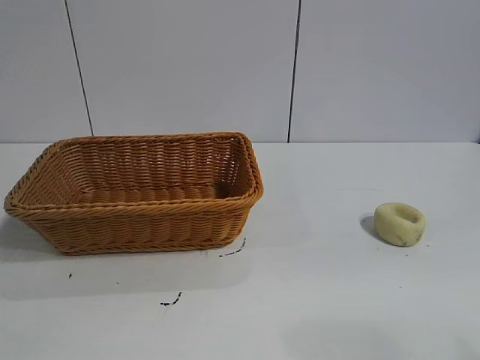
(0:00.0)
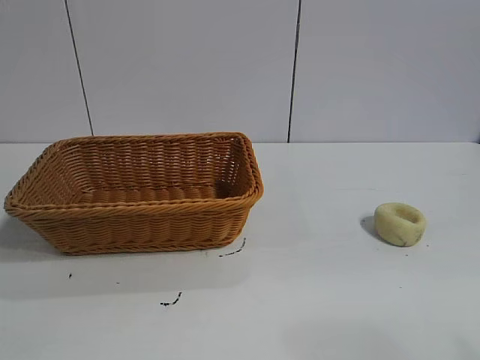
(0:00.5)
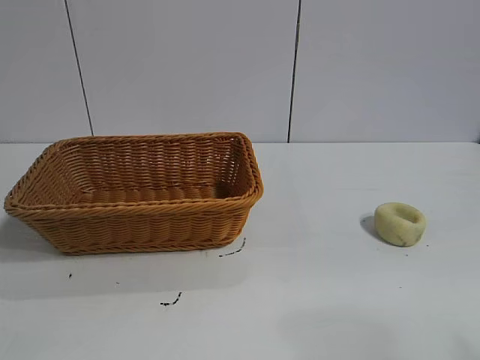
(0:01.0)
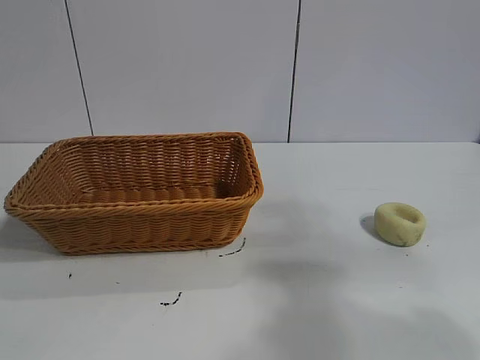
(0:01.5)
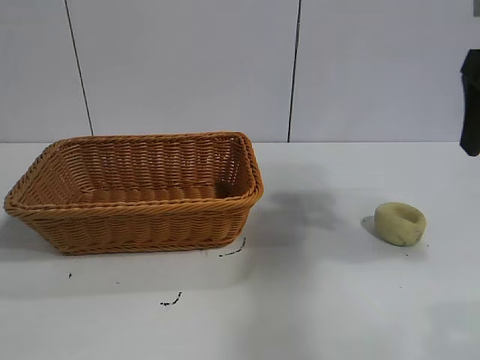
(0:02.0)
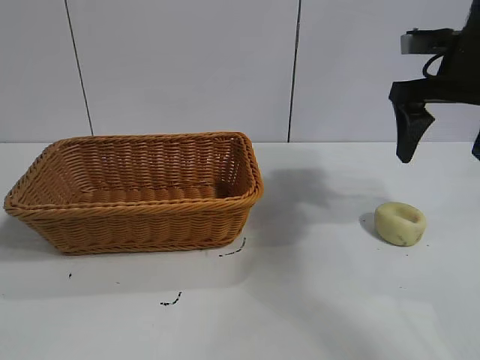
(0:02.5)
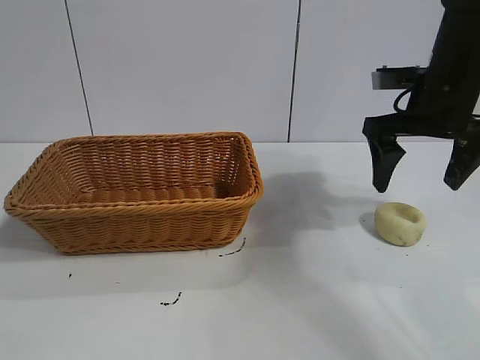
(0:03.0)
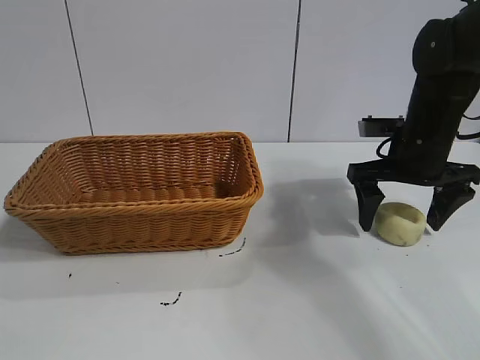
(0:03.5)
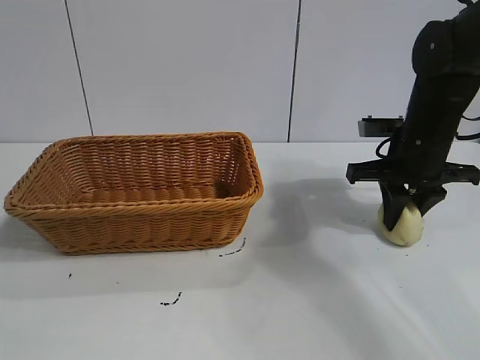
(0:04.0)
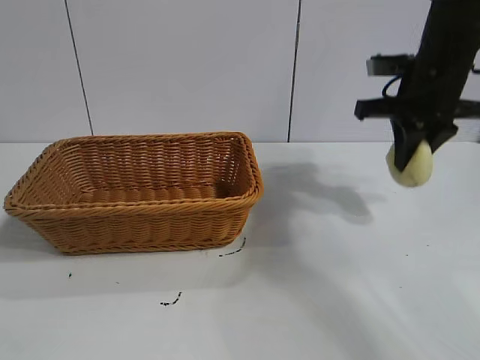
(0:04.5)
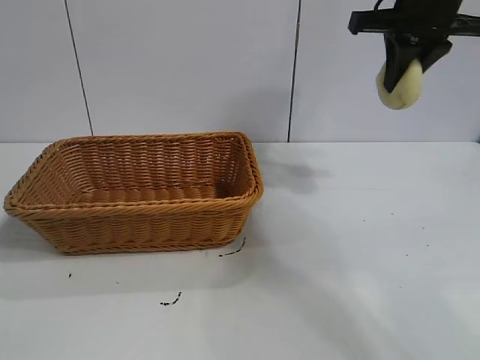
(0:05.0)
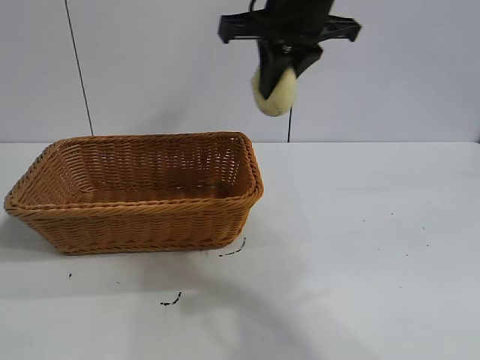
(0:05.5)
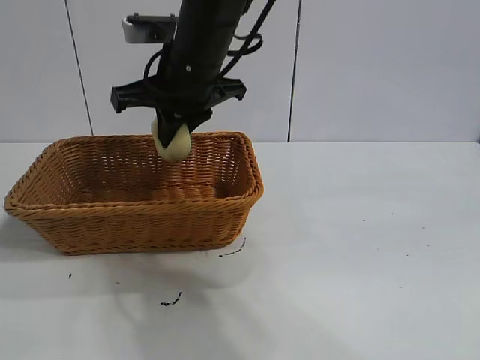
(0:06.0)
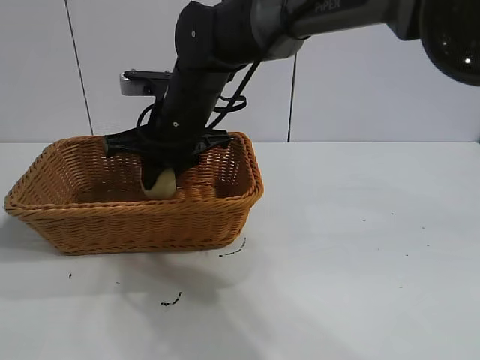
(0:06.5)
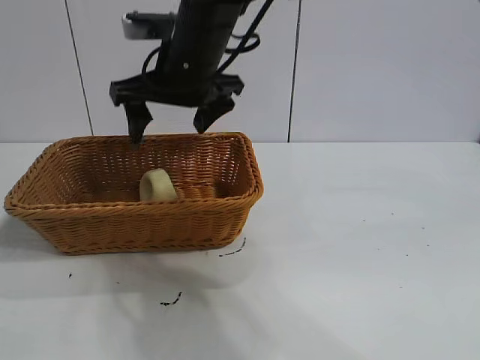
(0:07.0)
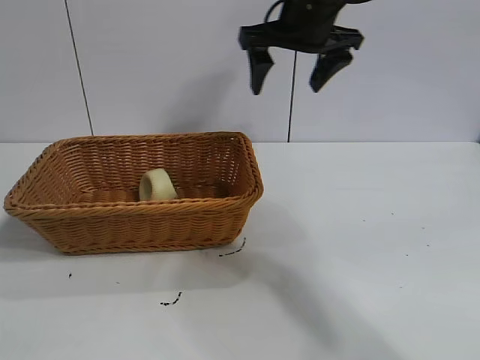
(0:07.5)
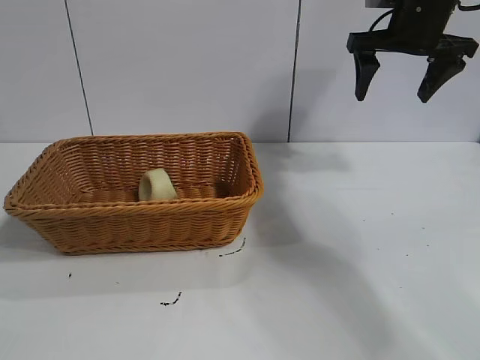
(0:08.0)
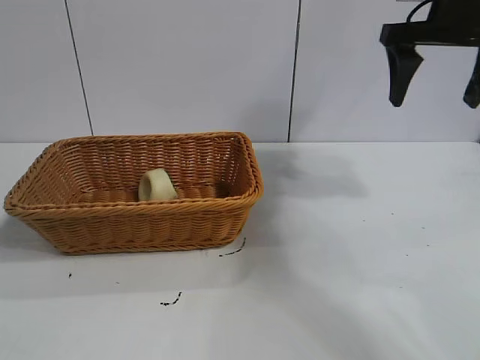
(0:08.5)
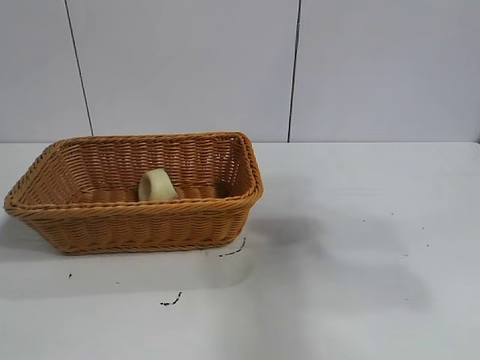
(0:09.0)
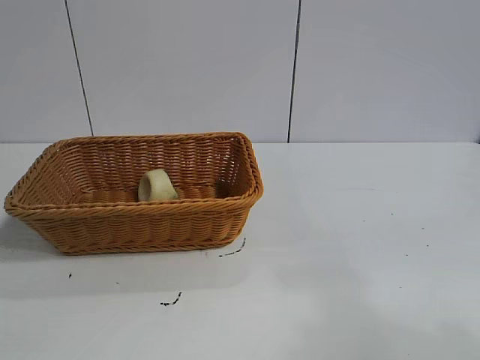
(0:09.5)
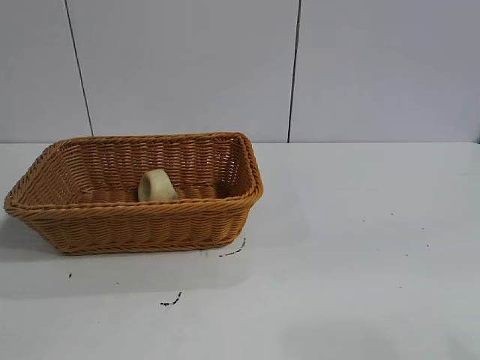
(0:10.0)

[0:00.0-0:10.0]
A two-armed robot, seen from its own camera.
Task of the whole recording: pick up the egg yolk pastry and put it into the basket.
Step, 0:01.0 to 0:04.0: Grasp egg yolk pastry with right gripper.
Step, 0:04.5 to 0:06.5: Place the egg yolk pastry in the basket with right gripper.

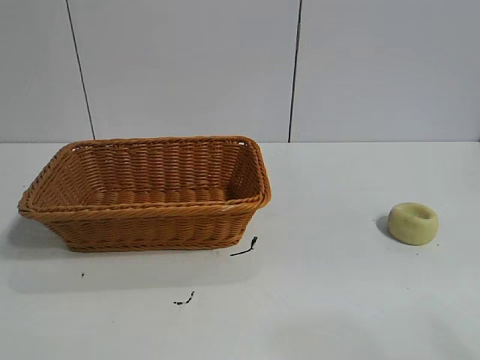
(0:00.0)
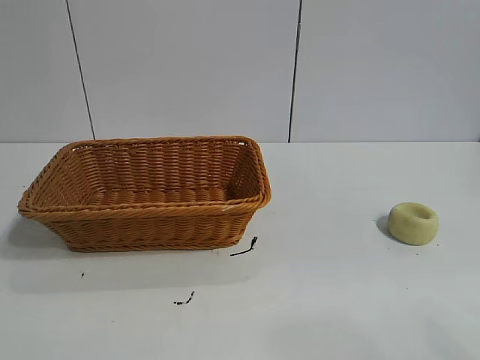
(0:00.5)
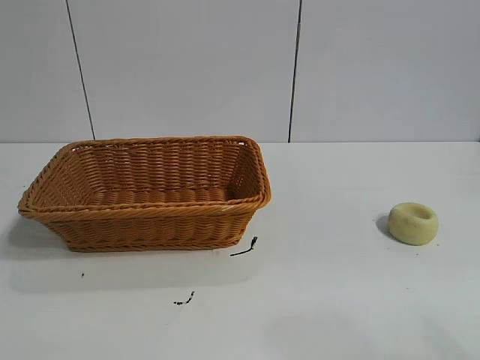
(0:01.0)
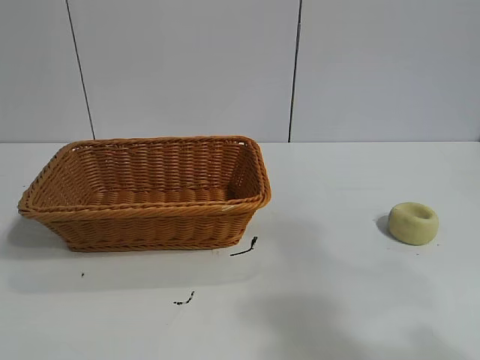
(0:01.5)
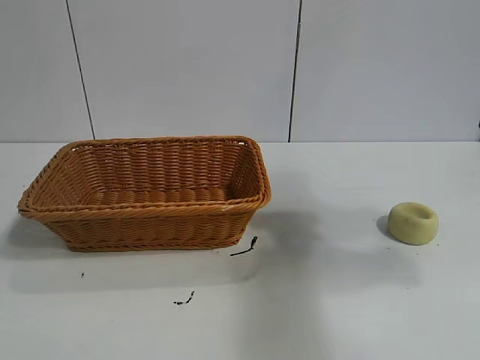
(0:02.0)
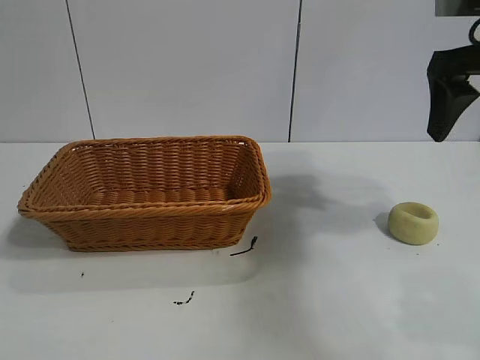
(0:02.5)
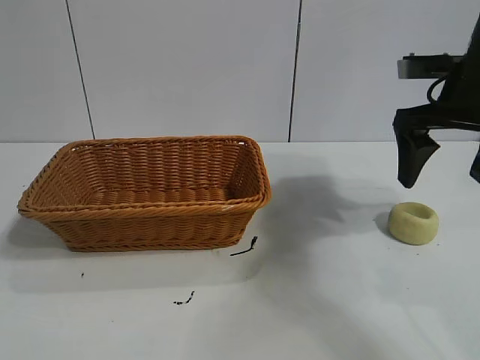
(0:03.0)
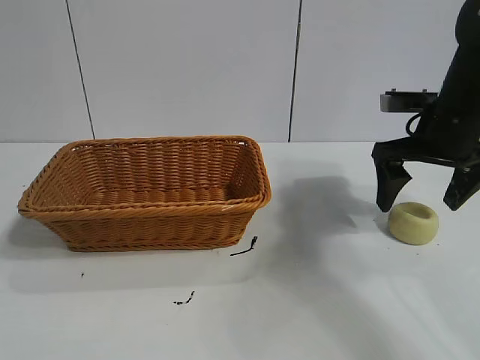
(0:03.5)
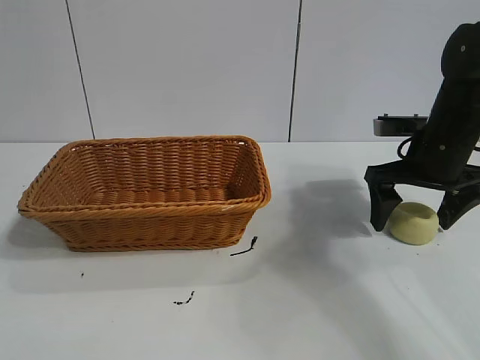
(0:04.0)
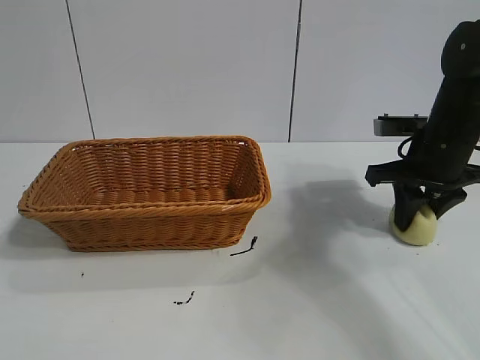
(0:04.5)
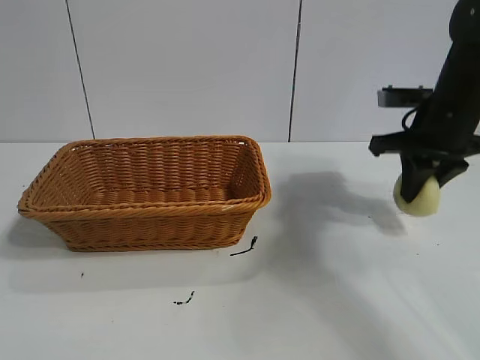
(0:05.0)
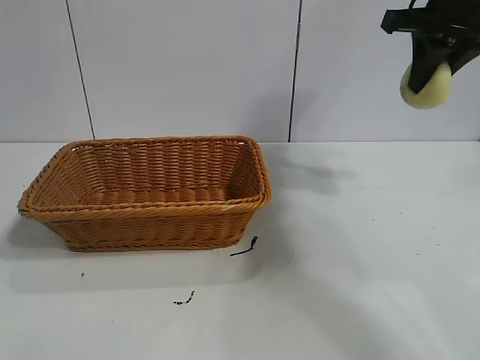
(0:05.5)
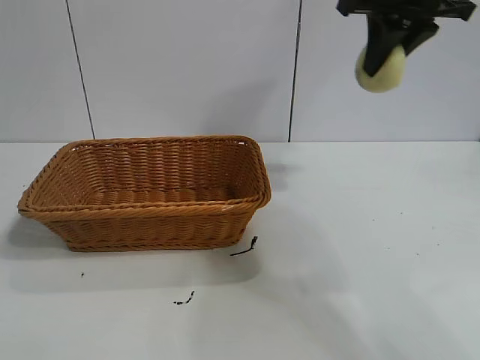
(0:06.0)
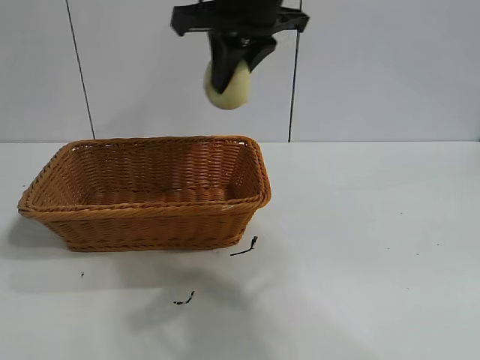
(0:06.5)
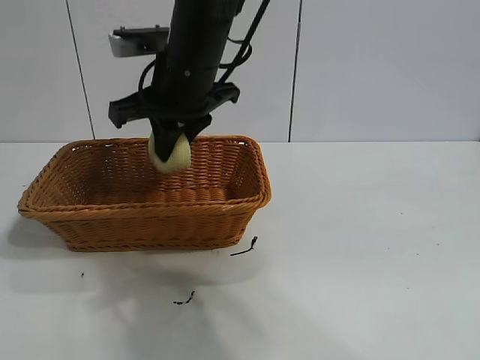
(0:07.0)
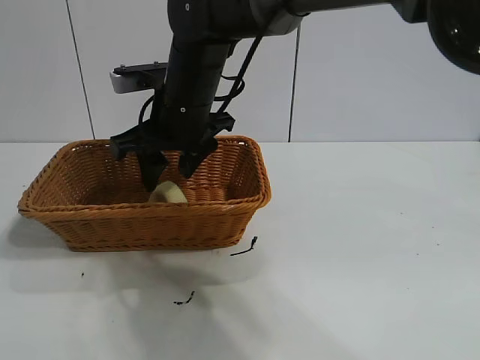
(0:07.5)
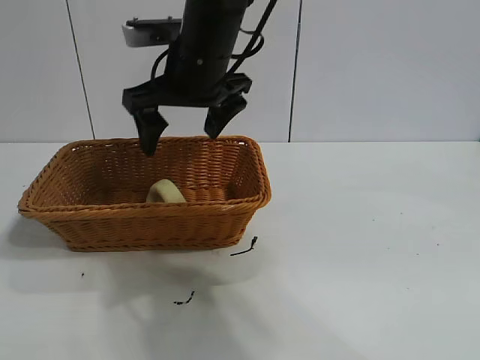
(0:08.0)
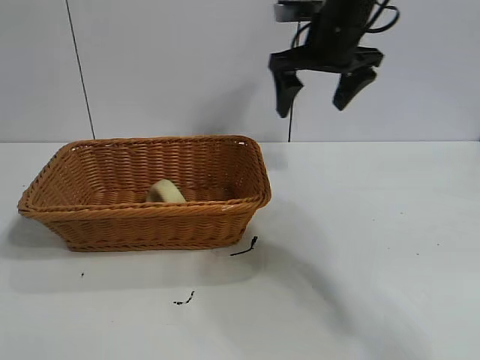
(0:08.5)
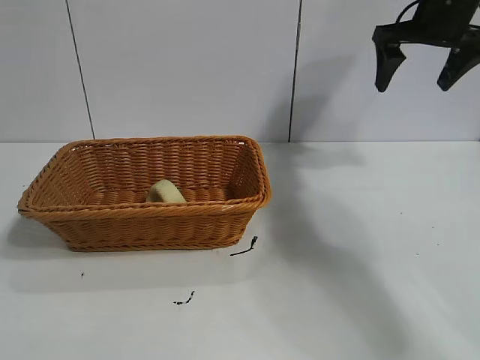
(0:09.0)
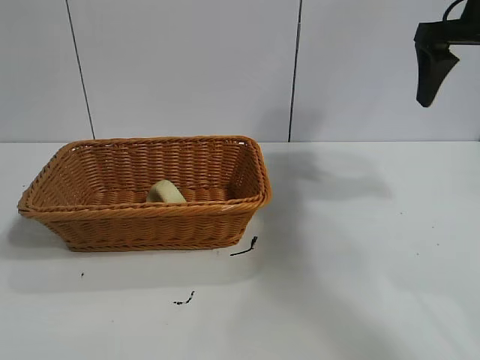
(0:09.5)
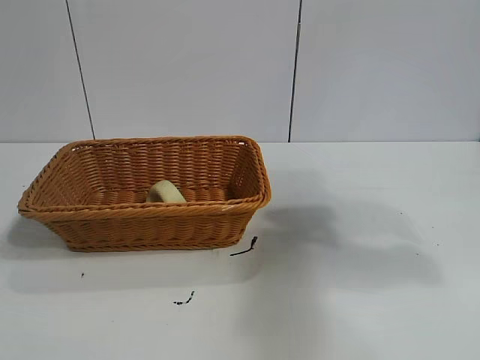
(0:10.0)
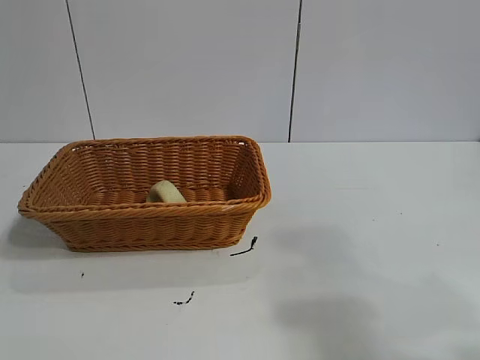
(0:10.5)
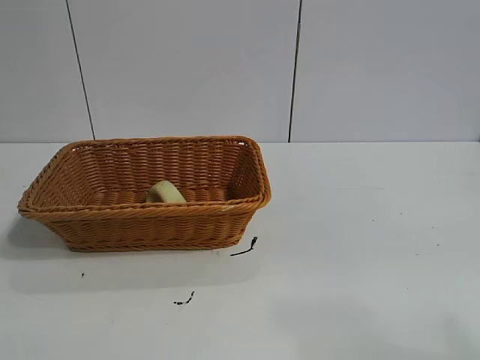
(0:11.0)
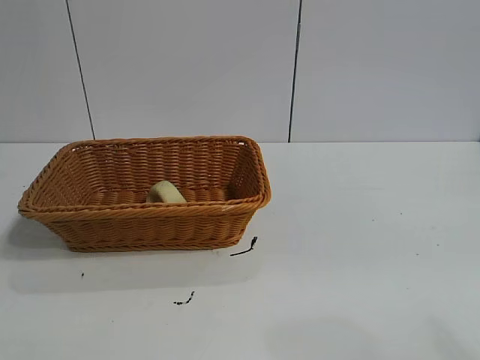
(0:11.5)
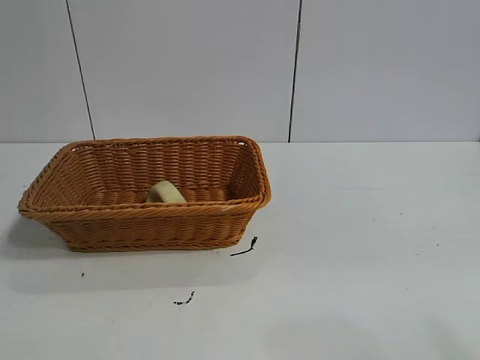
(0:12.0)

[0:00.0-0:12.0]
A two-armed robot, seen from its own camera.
Task of the whole recording: pick up the egg yolk pastry and put it into the basket.
Step, 0:00.0 to 0:04.5: Grasp egg yolk pastry with right gripper.
Step, 0:05.0 to 0:07.5: Place the egg yolk pastry in the basket with right gripper.

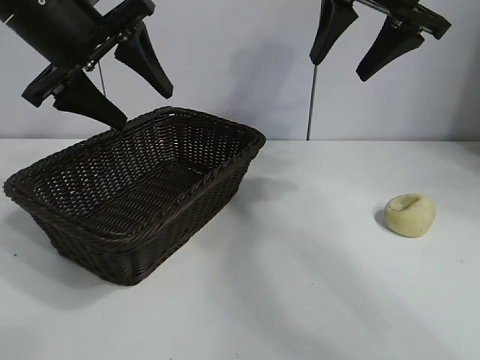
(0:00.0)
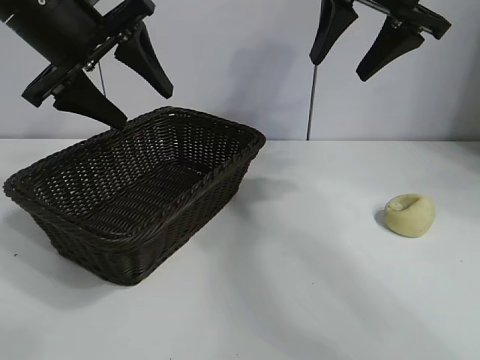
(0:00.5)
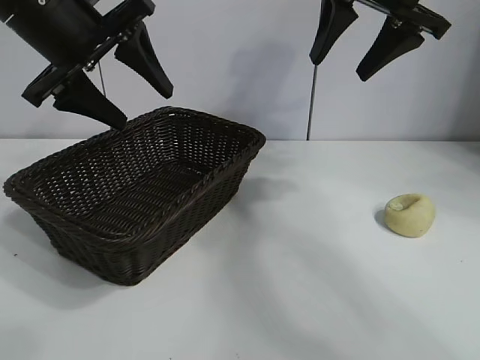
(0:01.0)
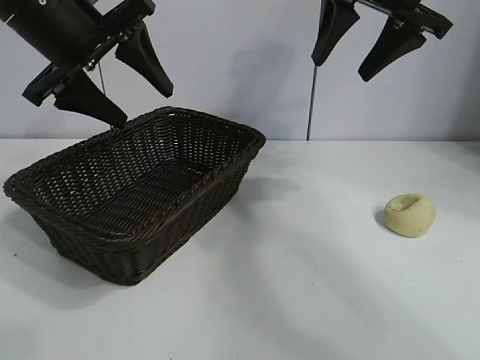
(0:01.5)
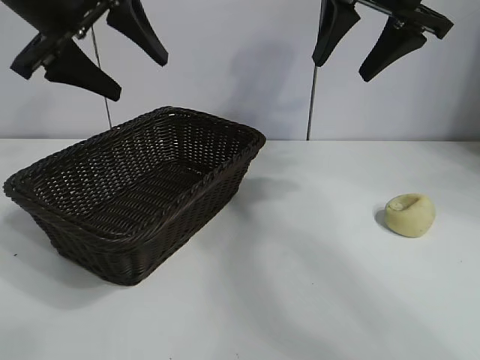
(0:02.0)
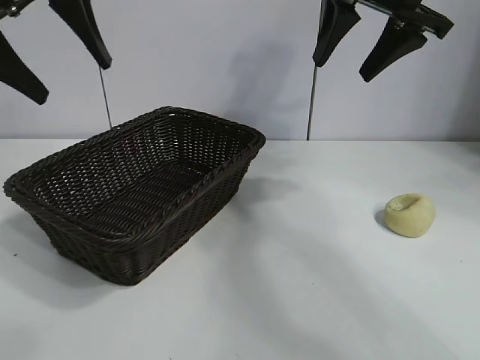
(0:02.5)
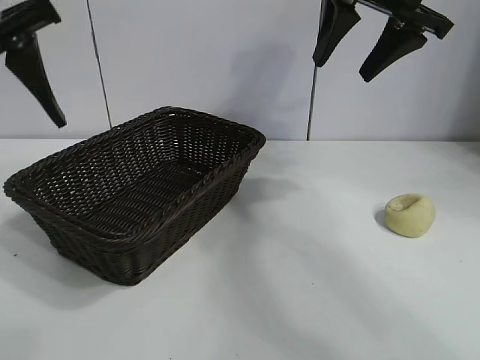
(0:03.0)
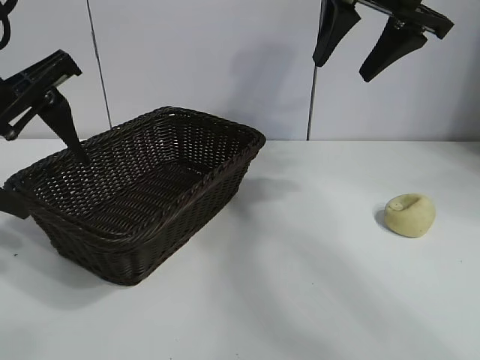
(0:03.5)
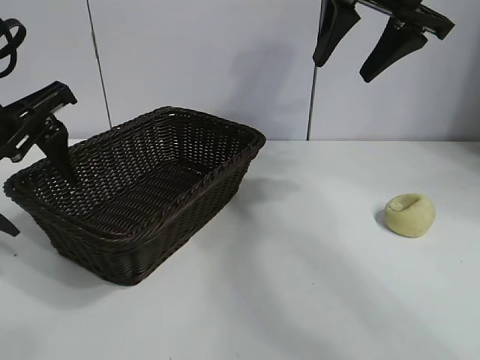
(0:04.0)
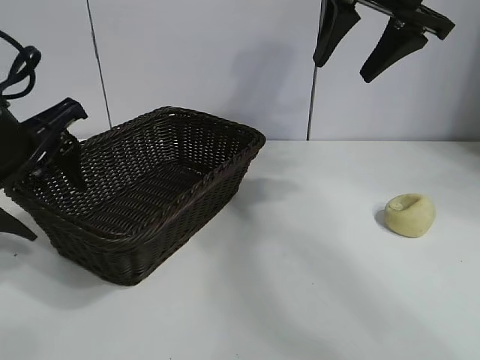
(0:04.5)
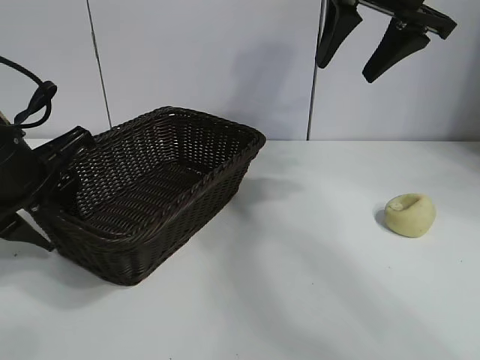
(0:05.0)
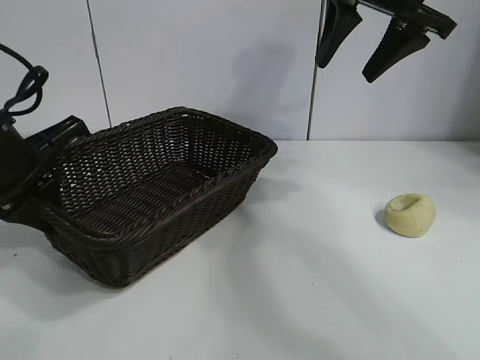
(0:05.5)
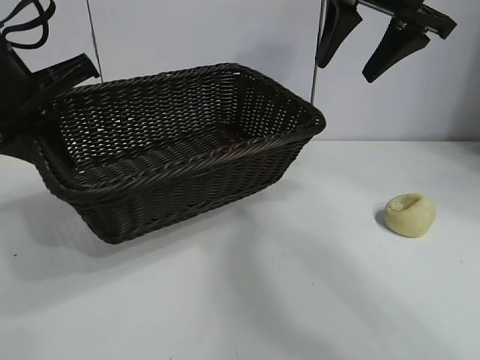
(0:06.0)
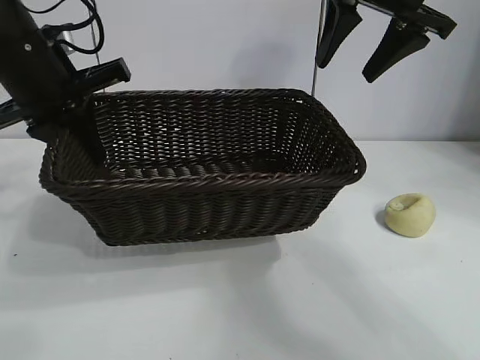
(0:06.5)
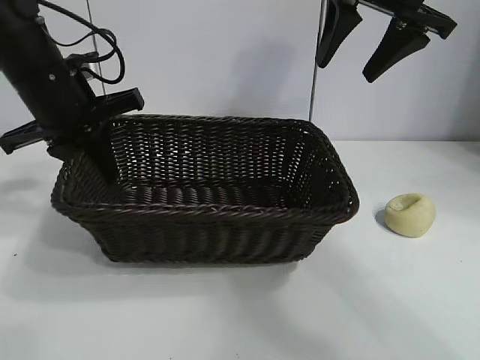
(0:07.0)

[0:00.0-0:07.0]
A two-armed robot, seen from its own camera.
Task of the whole recording: pick up the egg yolk pastry and put it into the basket.
Step, 0:01.5 to 0:05.0: Grasp the basket with left gripper.
